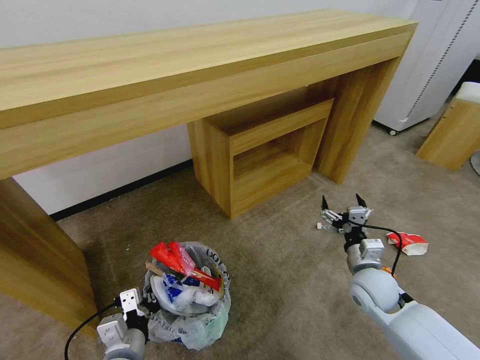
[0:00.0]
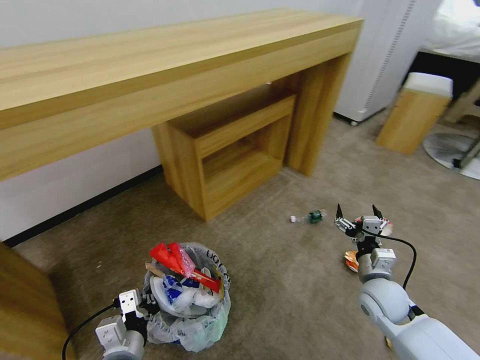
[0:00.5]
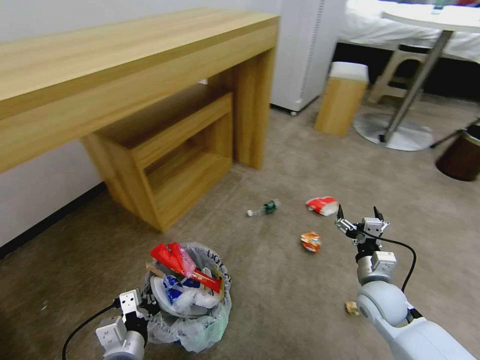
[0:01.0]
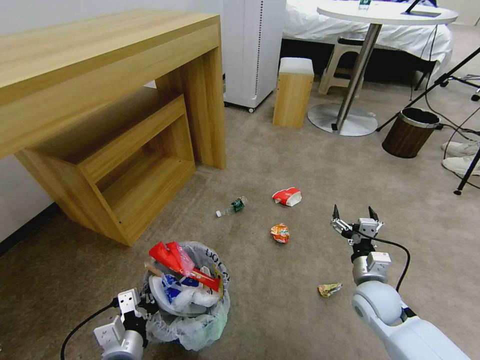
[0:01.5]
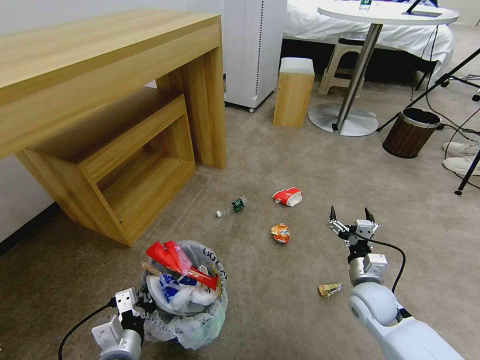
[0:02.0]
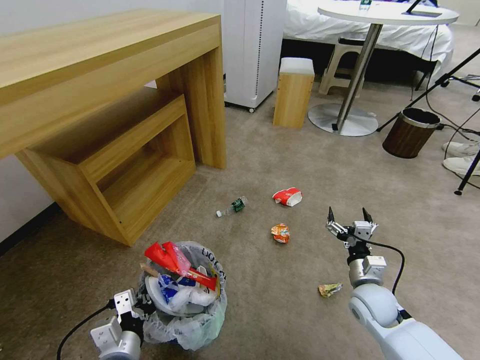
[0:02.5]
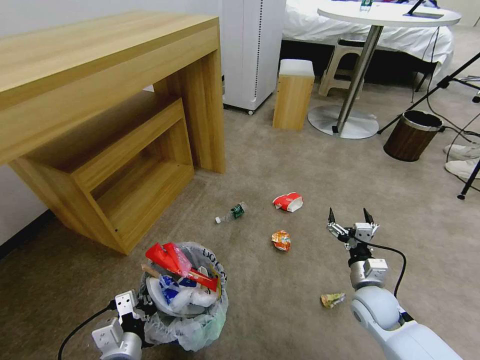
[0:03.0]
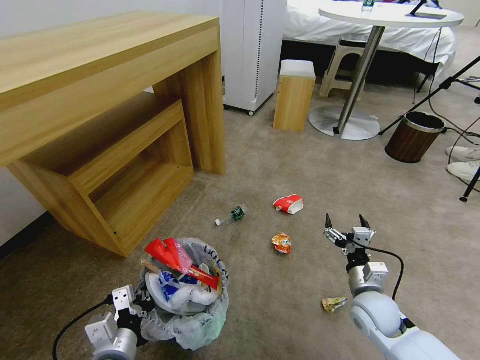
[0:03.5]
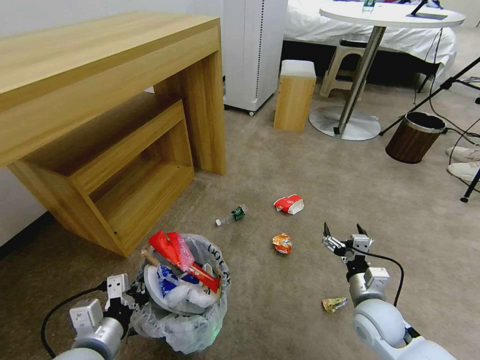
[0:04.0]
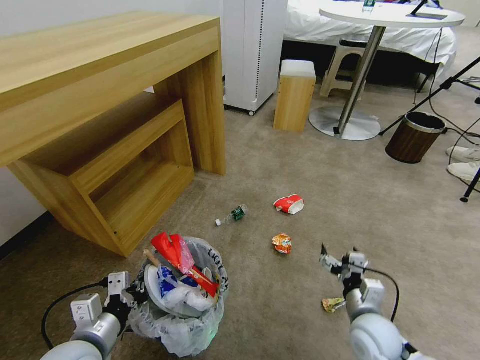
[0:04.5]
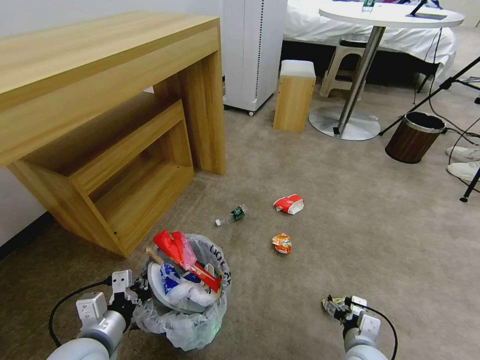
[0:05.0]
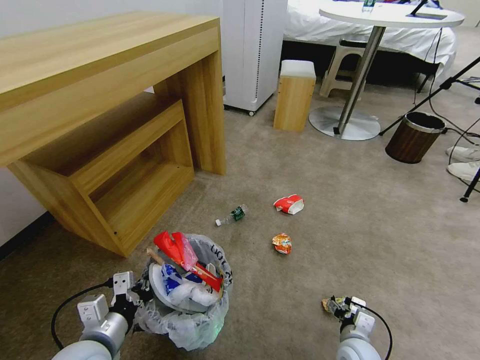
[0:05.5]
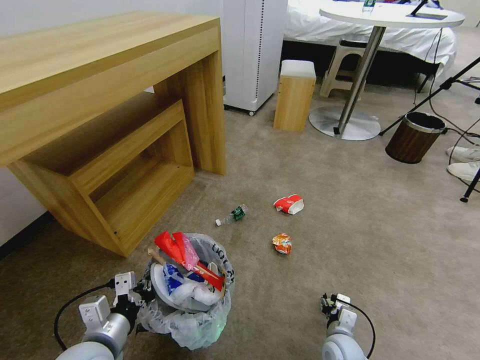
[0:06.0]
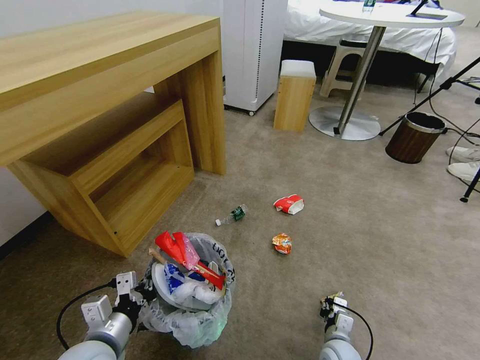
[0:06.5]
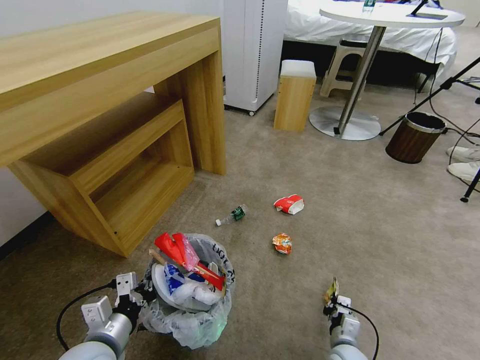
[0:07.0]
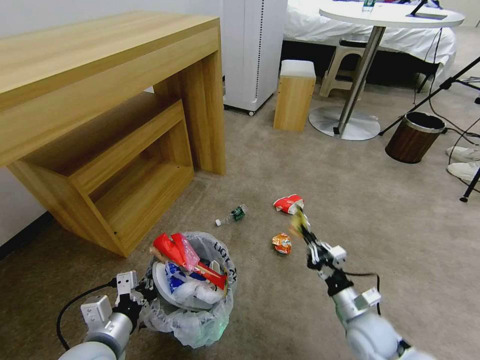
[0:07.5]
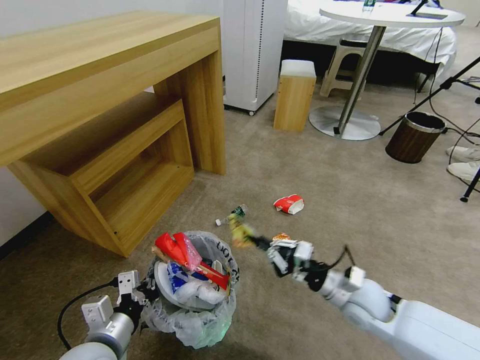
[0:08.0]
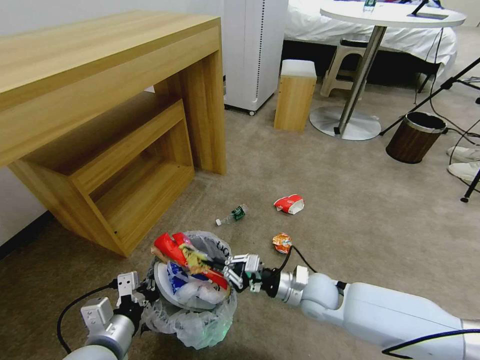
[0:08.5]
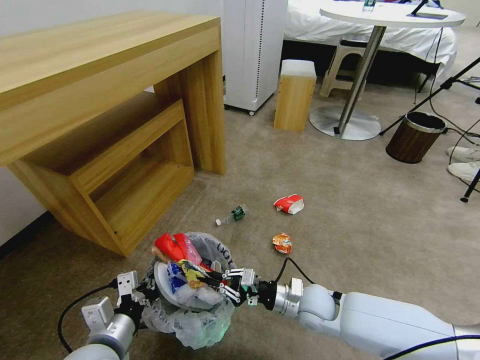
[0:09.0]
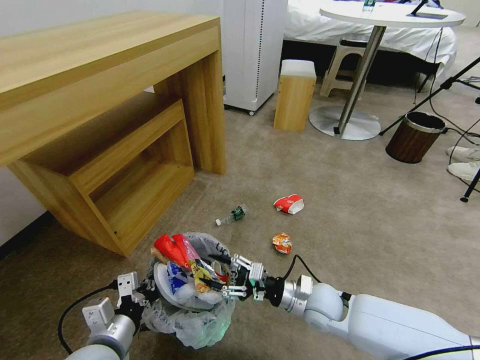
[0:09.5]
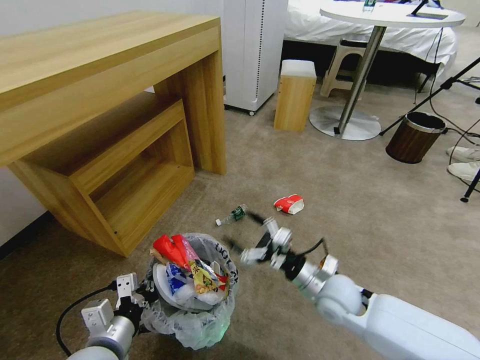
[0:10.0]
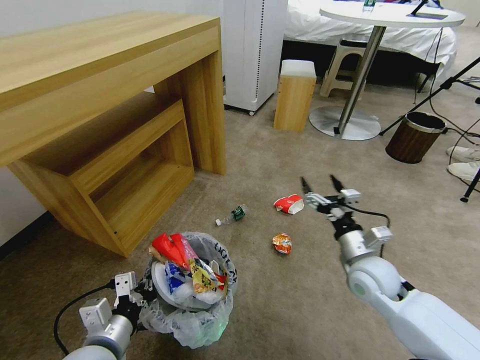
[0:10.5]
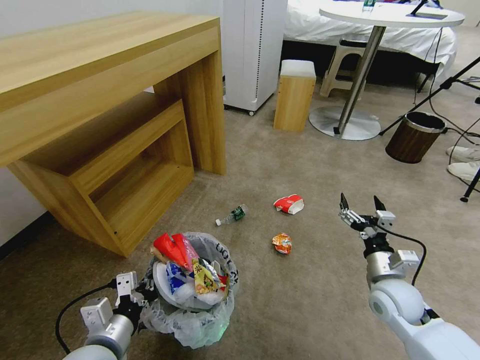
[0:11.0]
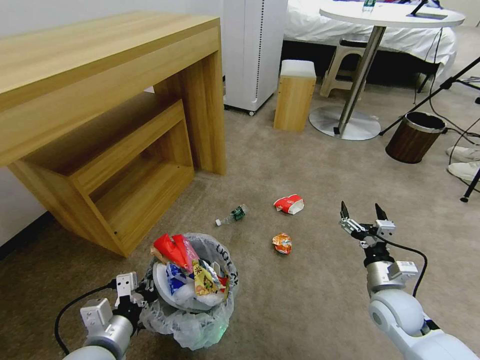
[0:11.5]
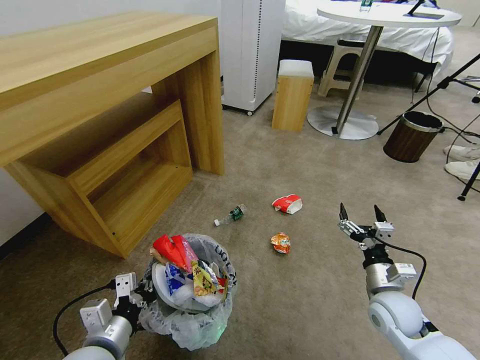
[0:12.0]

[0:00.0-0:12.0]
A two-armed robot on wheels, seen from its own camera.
Task of the whole recording: Pick up the trash bin and place the garbage on the floor into it.
2.0 to 4.0 s: The left gripper travels upward by roughly 5 cm.
4.0 to 6.0 s: The right gripper is displaced downward by some 15 cm.
6.0 to 8.0 s: The right gripper is displaced upward by roughly 20 cm, and closes up.
8.0 to 10.0 s: The right gripper heads to the left, covering approximately 5 cm, and opens up.
10.0 to 12.0 s: The right gripper travels to the right by some 15 cm.

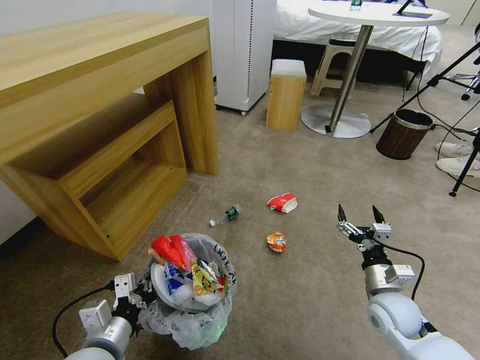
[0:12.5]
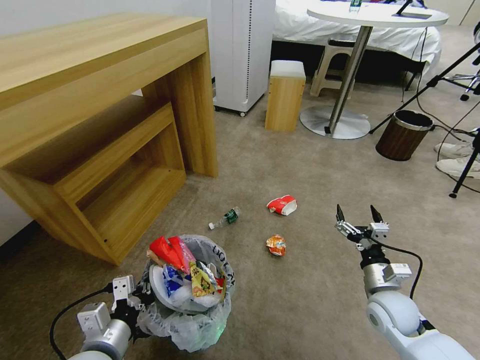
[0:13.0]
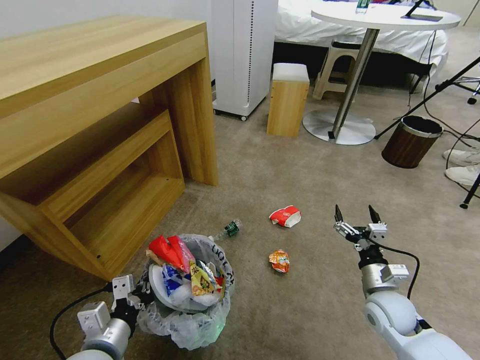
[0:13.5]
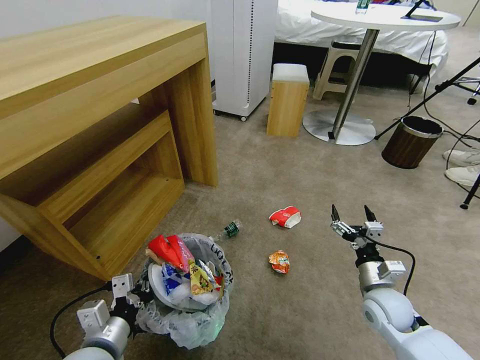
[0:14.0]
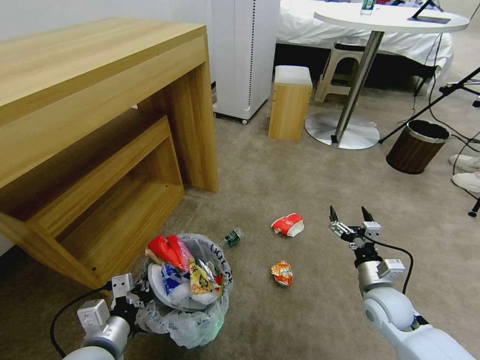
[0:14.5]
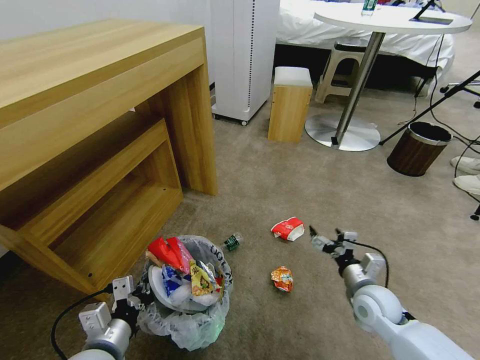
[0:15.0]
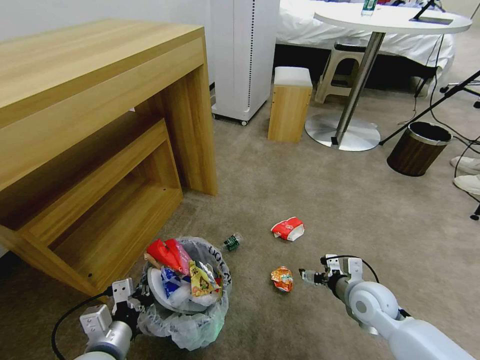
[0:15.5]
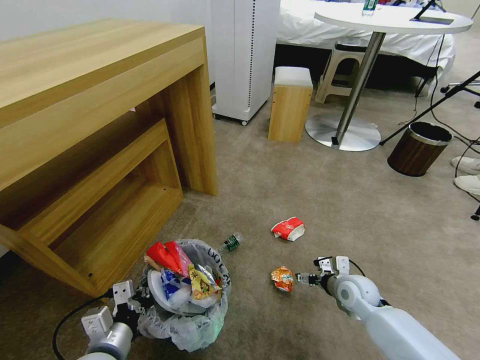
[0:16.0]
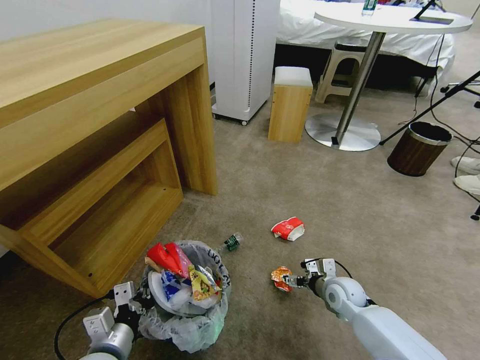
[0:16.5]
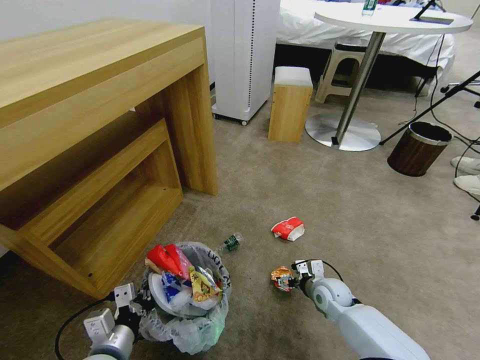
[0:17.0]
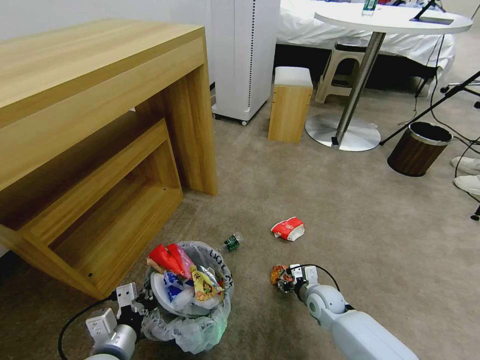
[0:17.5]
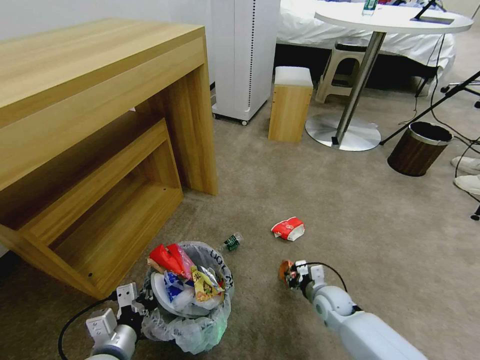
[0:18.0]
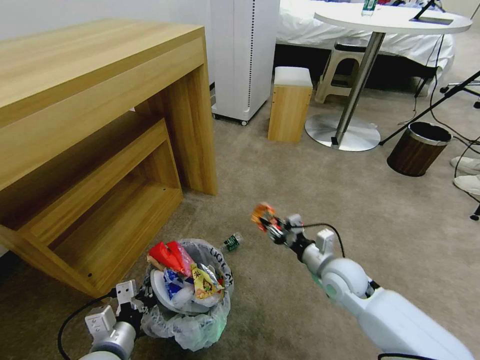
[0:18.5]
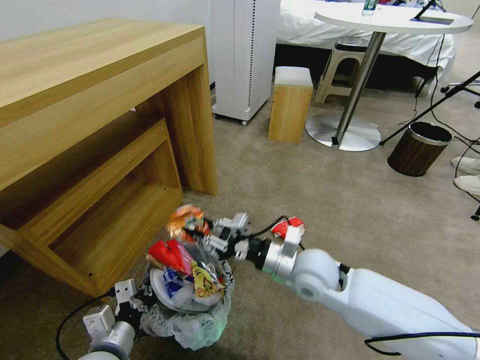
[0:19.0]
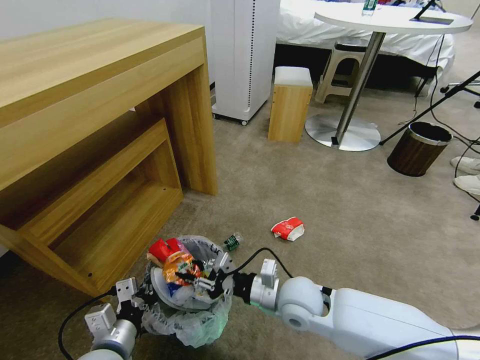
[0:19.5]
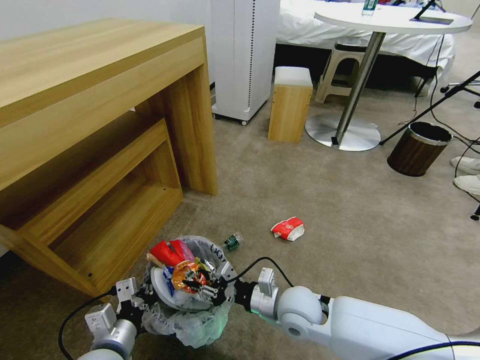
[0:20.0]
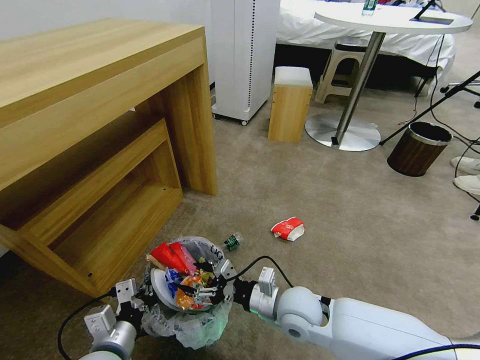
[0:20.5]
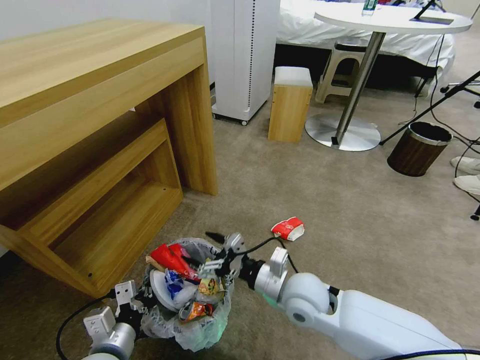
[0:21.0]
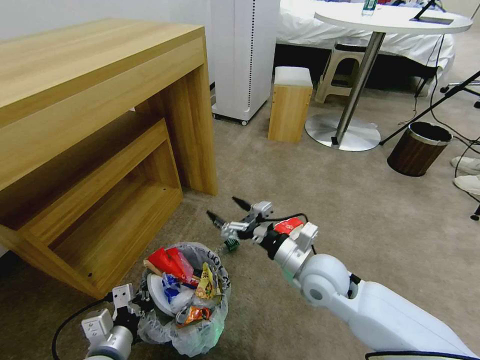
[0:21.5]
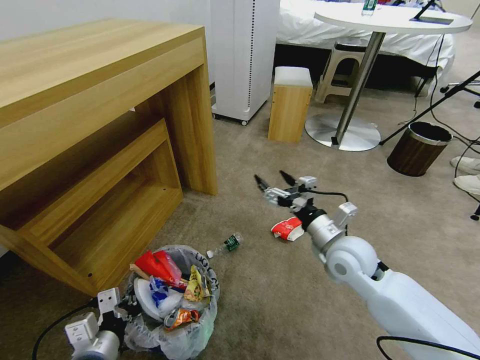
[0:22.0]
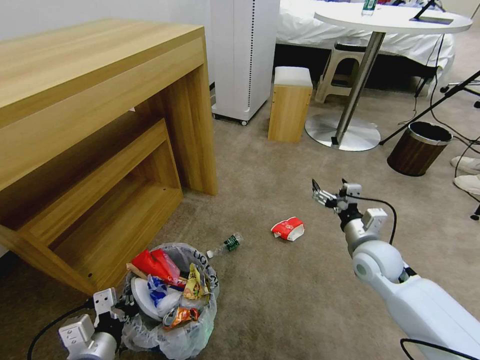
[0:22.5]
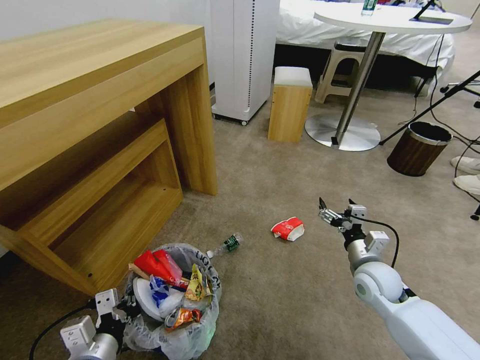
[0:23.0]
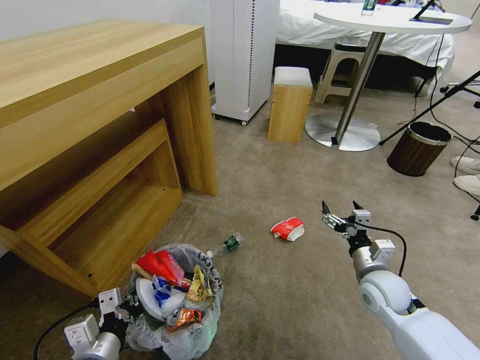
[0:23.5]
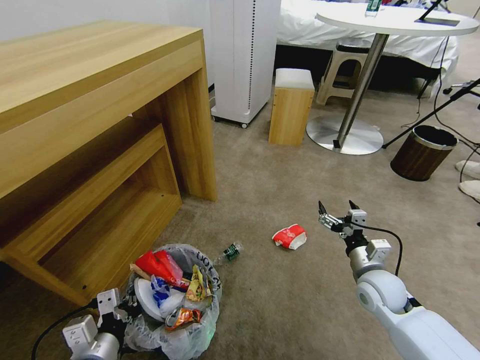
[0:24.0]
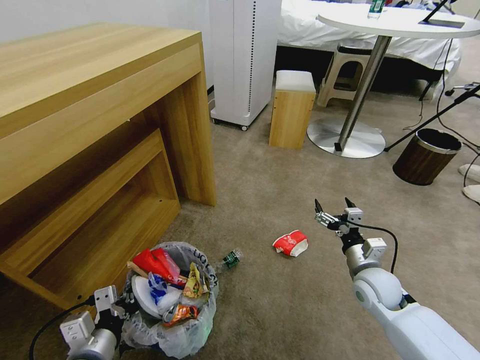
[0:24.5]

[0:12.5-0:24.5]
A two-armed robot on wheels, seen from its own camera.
Task of the whole recording: Pick up the trash bin and place the garbage on the floor into it.
14.5 to 16.5 s: The right gripper goes about 10 cm downward and forward.
16.5 to 18.5 s: The right gripper heads upward and to the left, covering about 15 cm, and closes.
18.5 to 20.5 s: The right gripper goes approximately 15 cm to the left and backward, and opens its fingers.
20.5 to 22.5 s: The right gripper travels to the right and forward by approximately 20 cm.
22.5 to 24.5 s: The right gripper is displaced downward by approximately 5 cm.

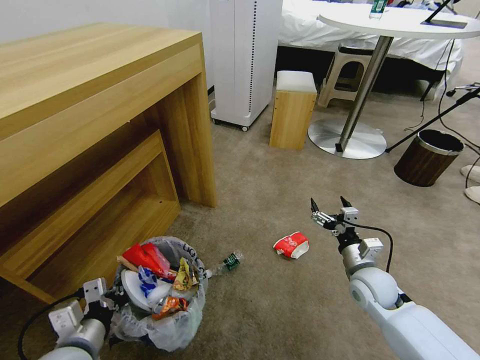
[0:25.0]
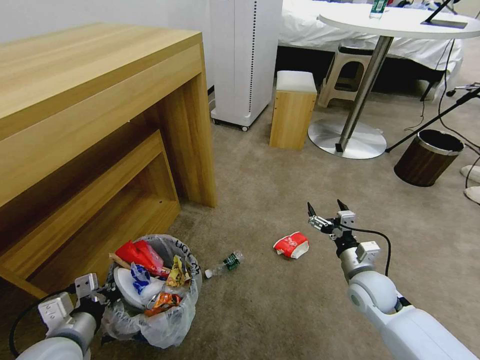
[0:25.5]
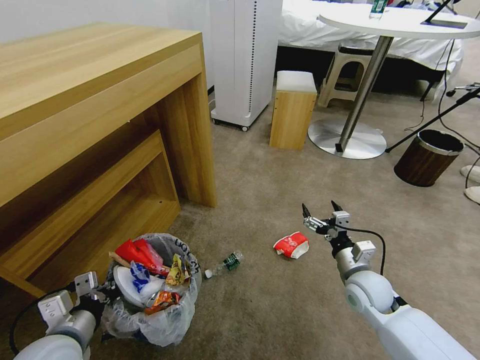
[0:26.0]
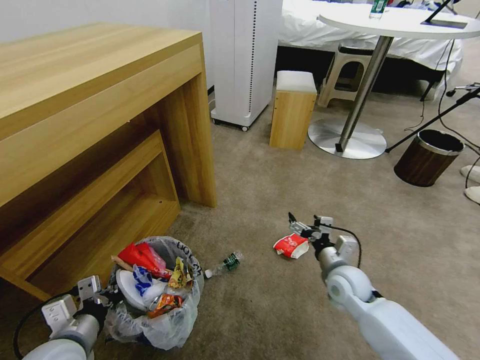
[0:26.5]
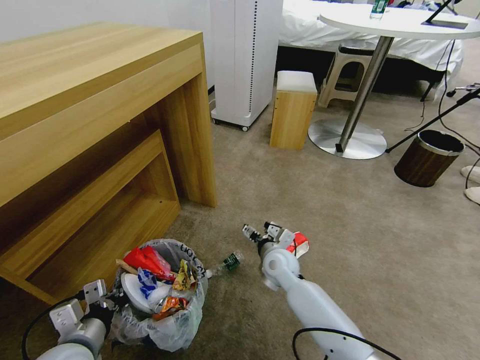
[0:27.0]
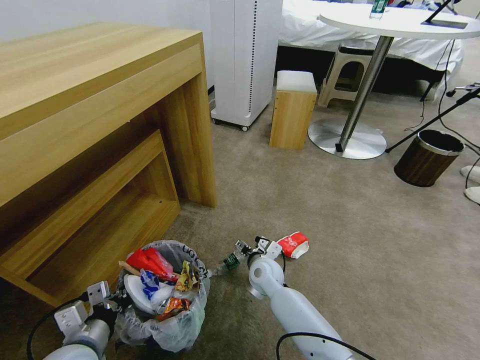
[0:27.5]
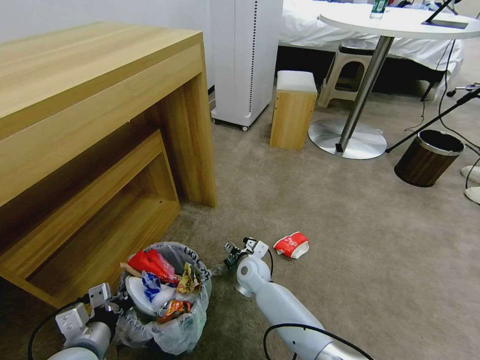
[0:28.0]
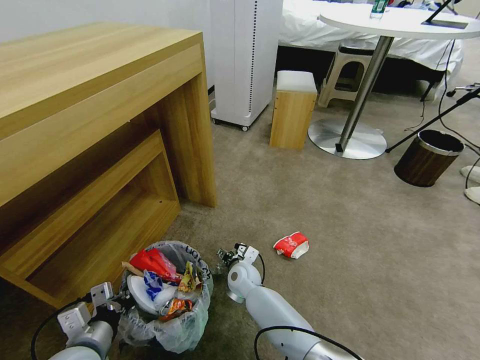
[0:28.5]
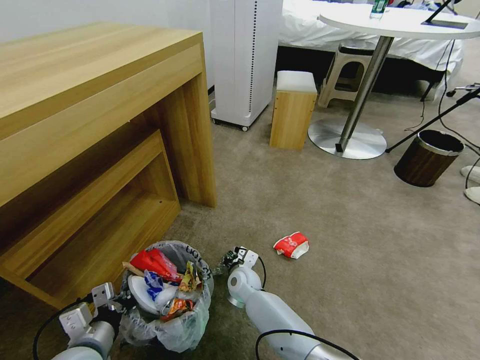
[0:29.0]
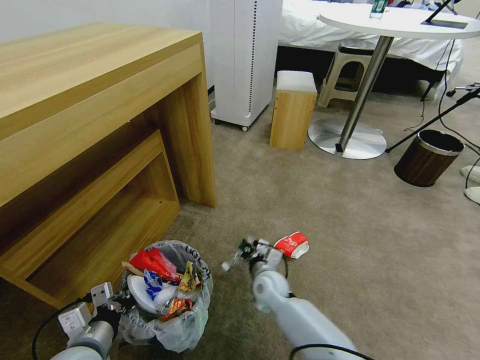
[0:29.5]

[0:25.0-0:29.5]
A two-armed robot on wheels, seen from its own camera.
Task of the whole recording: Pick up the trash bin and place the garbage on the floor into it.
25.0 to 27.0 s: The right gripper heads to the left, covering some 20 cm.
27.0 to 29.5 s: The right gripper goes some 5 cm downward, moves roughly 10 cm to the left and comes back, and closes its fingers.
